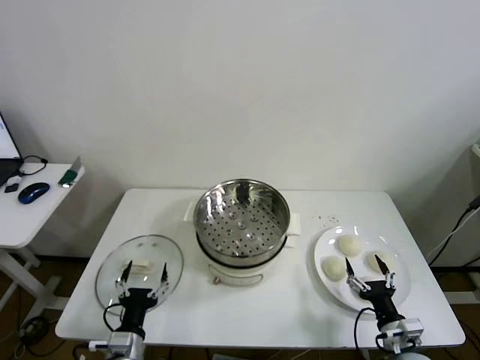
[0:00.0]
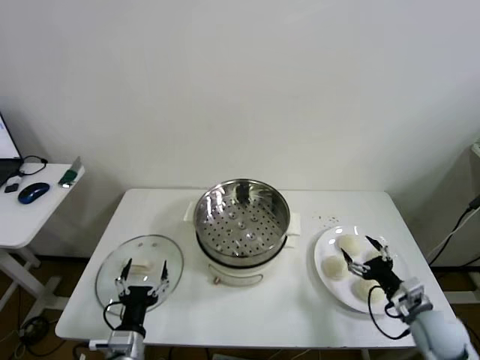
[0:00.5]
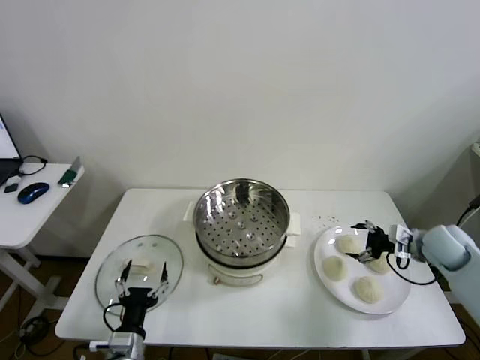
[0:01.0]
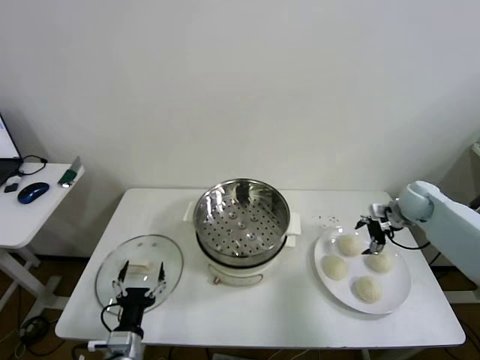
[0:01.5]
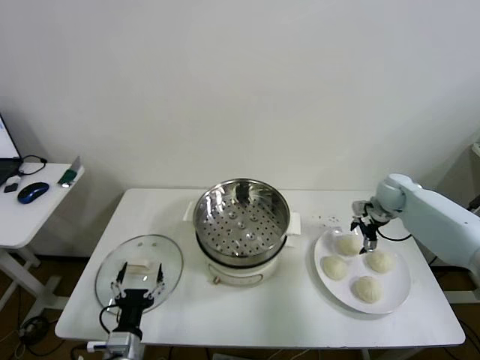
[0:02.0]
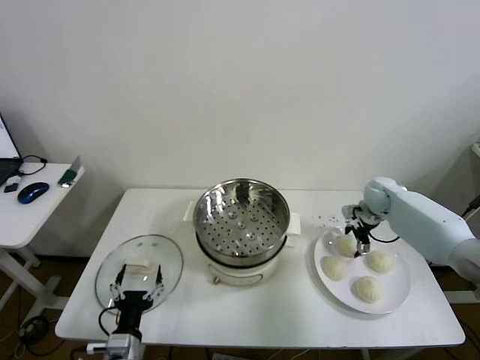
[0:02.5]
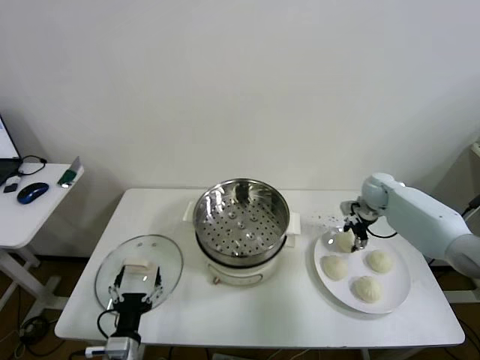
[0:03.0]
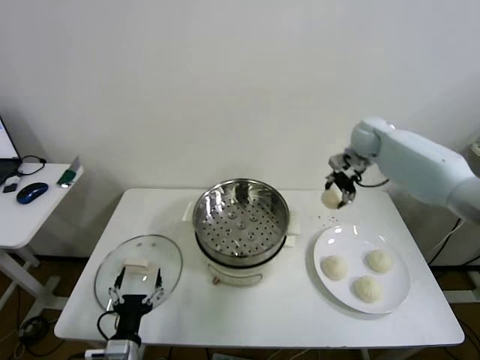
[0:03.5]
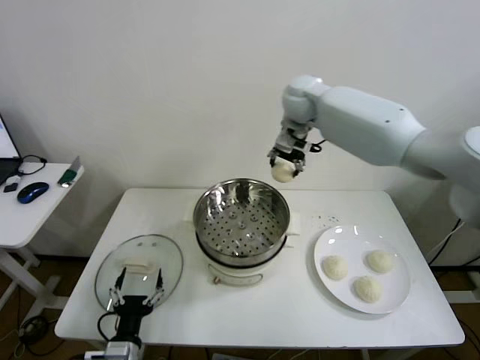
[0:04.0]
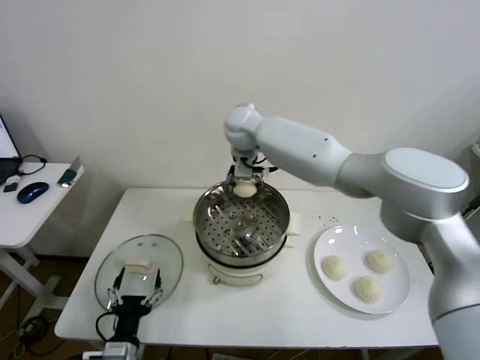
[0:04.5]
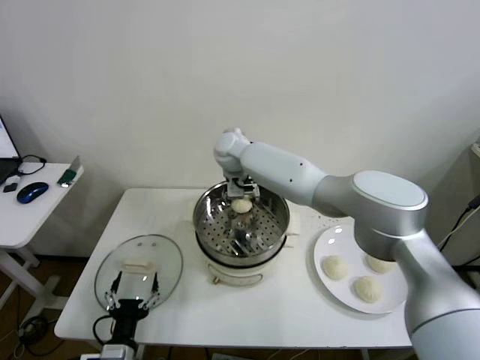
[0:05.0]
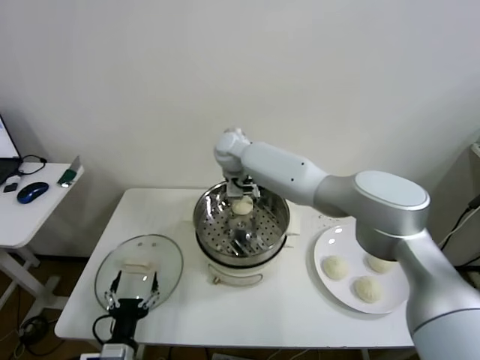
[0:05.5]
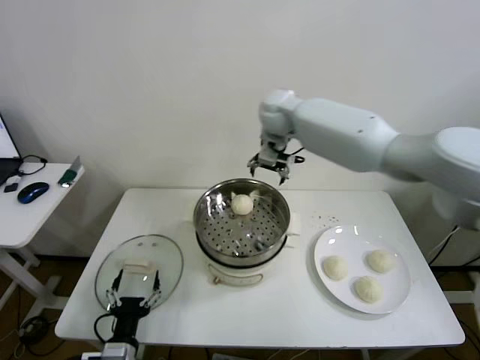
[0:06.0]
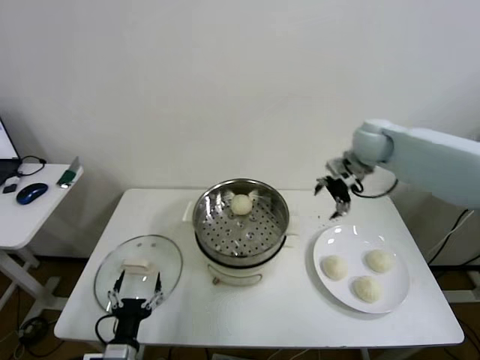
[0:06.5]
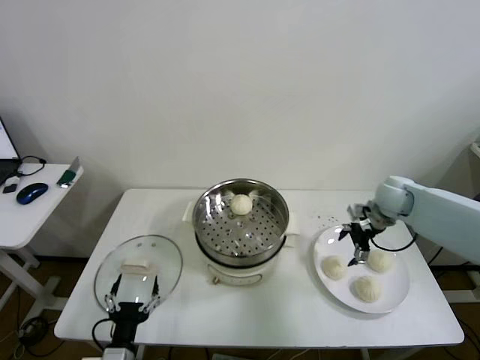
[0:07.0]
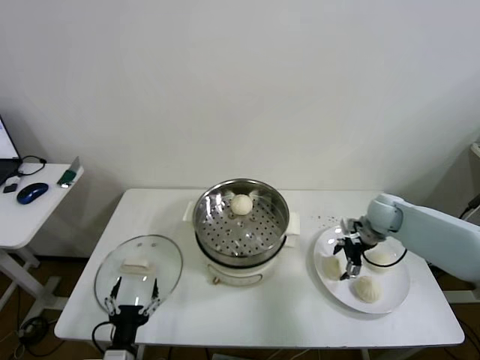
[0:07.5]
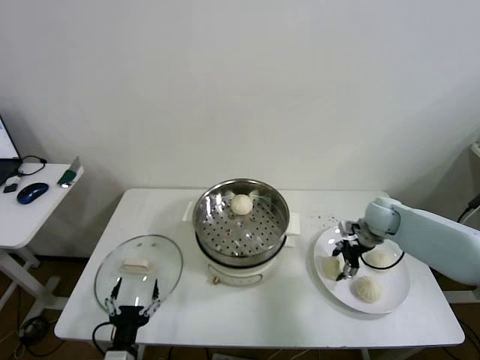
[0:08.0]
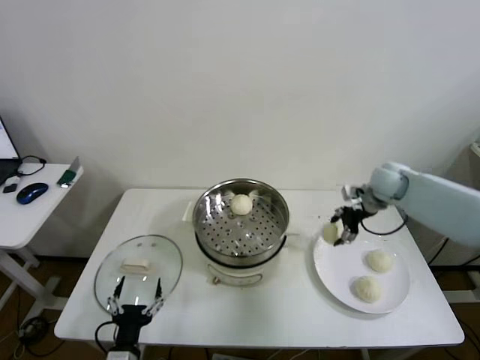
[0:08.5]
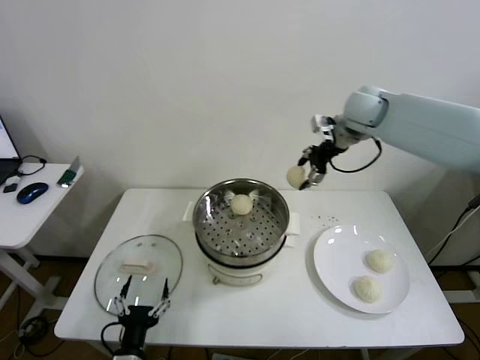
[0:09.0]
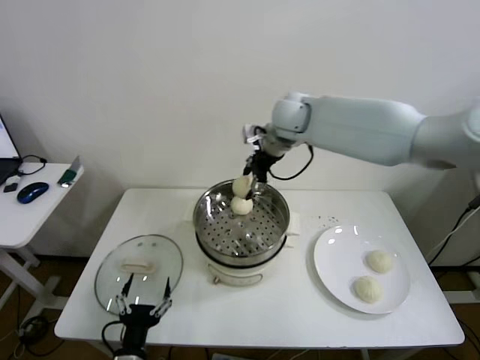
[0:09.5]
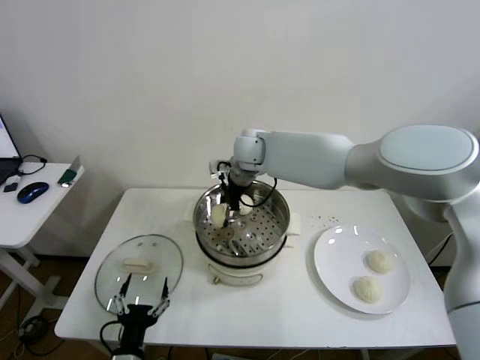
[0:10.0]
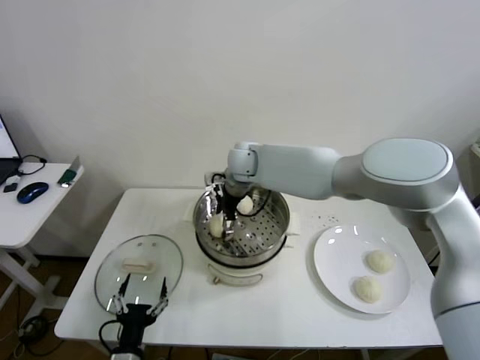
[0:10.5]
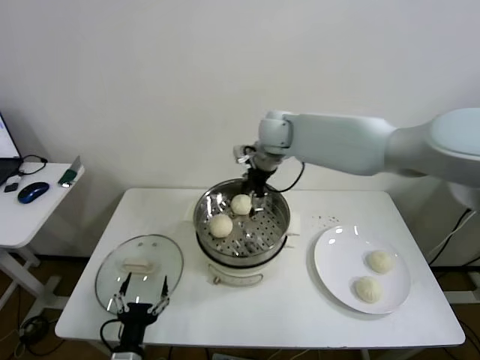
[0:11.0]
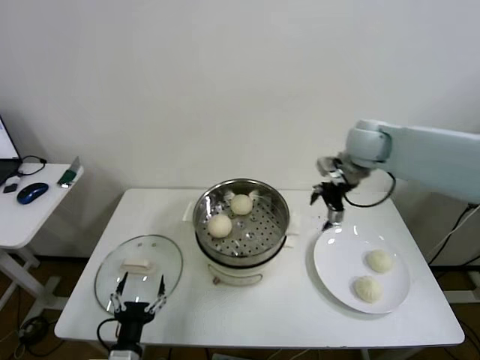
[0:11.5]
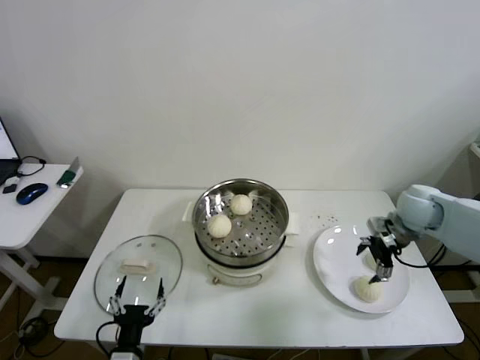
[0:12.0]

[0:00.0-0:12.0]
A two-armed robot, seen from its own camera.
Step, 0:00.0 to 0:02.5: Grasp the baozi in the plate with right gripper.
Step, 0:03.0 to 0:05.0: Place the baozi on the steamer with right gripper.
Step, 0:05.5 to 0:08.0: Grasp the baozi in the plate with right gripper.
Step, 0:08.5 to 0:10.0: Place the baozi on the steamer with right gripper.
0:02.0 to 0:04.0: The right gripper moves to the left and upward, about 40 cm, and closes its fingers.
0:04.0 to 0:06.0: The right gripper moves roughly 15 cm to the left and comes back, and opens.
0:06.0 to 0:08.0: The right gripper is displaced downward and to the right by about 35 cm, and closes.
0:08.0 to 0:10.0: The right gripper heads to the left and upward, covering some 40 cm.
0:10.0 to 0:12.0: The right gripper is displaced to the right by about 40 cm, and opens up.

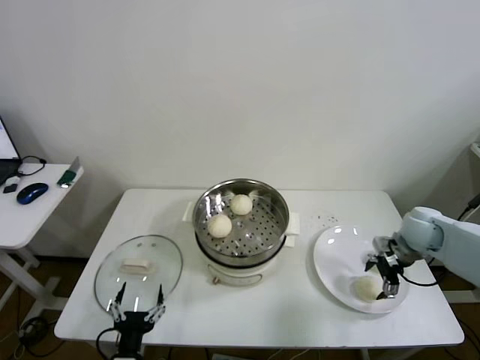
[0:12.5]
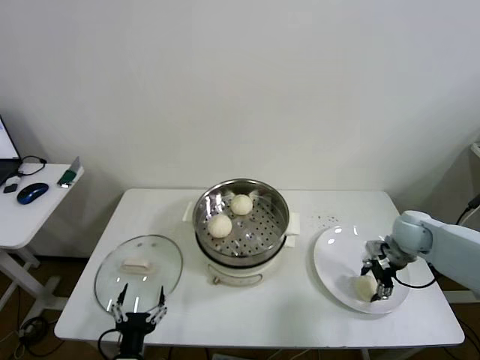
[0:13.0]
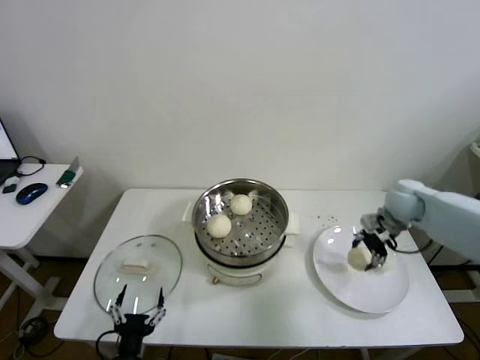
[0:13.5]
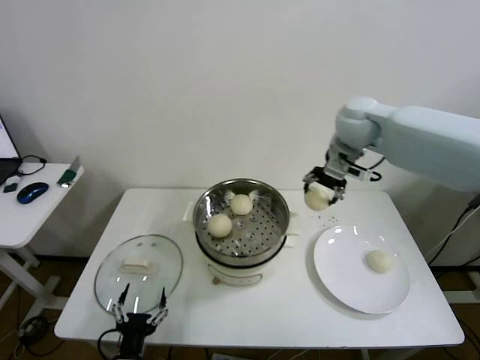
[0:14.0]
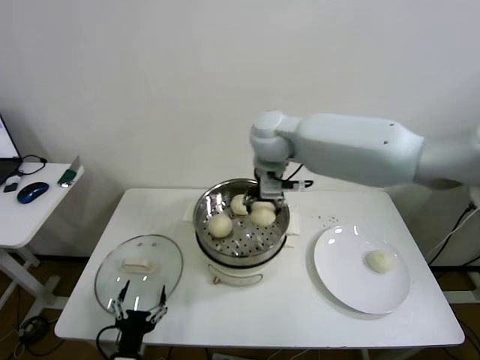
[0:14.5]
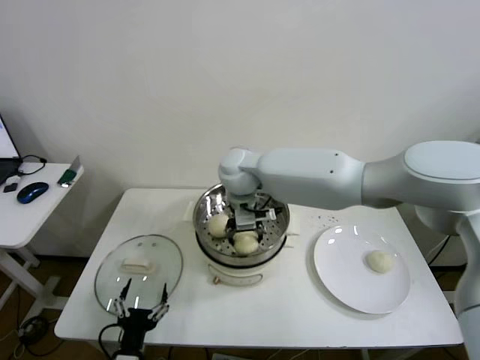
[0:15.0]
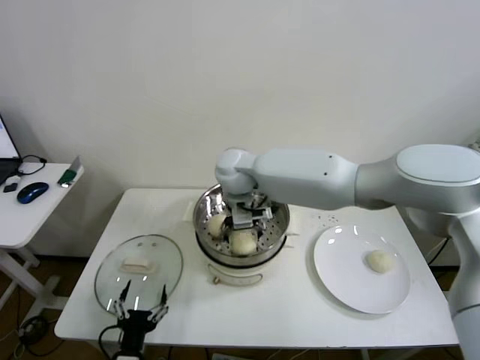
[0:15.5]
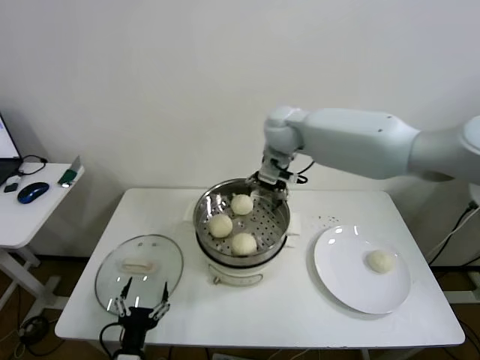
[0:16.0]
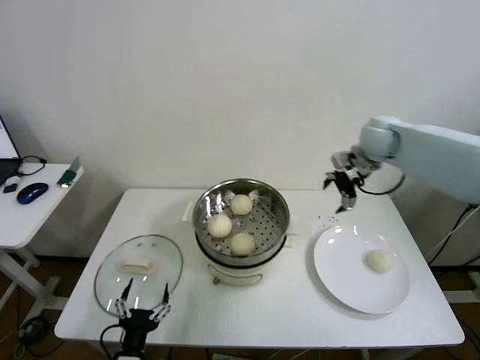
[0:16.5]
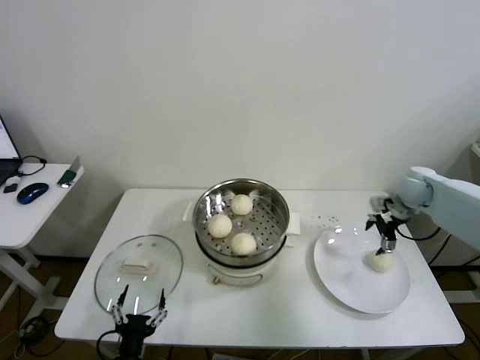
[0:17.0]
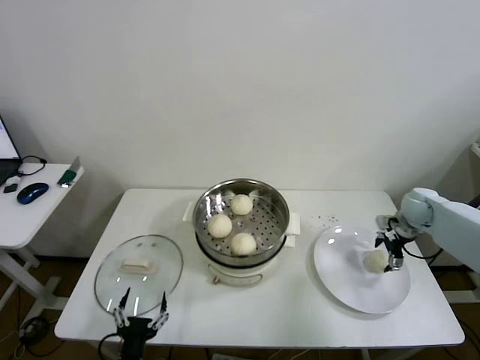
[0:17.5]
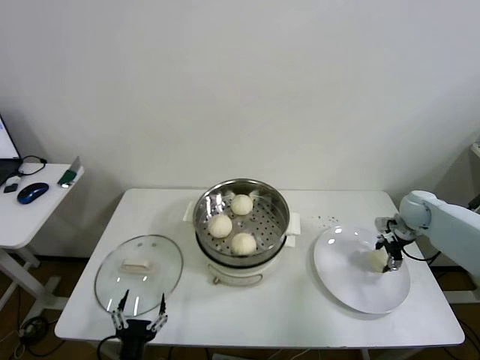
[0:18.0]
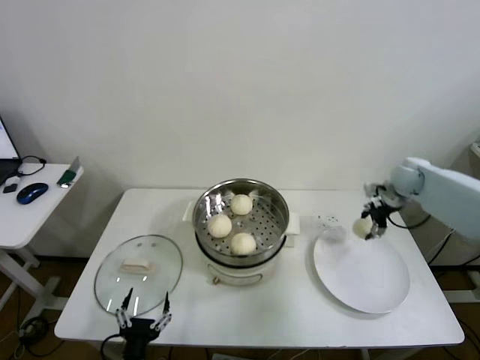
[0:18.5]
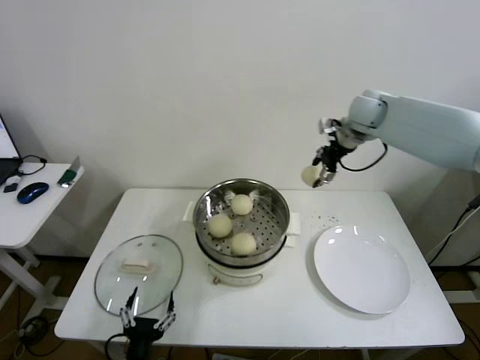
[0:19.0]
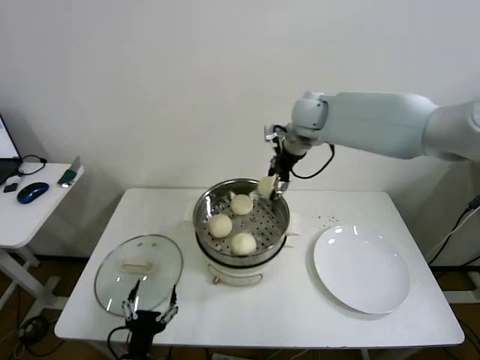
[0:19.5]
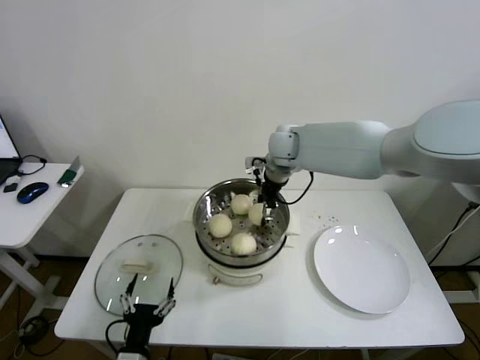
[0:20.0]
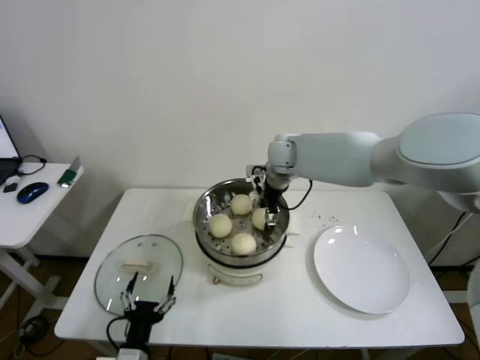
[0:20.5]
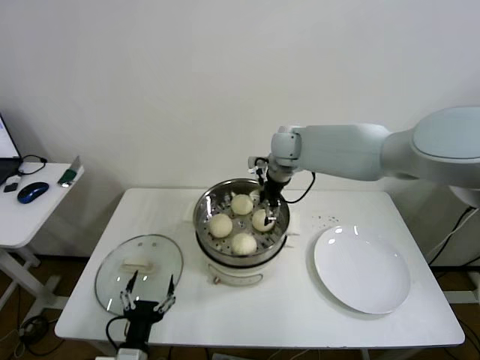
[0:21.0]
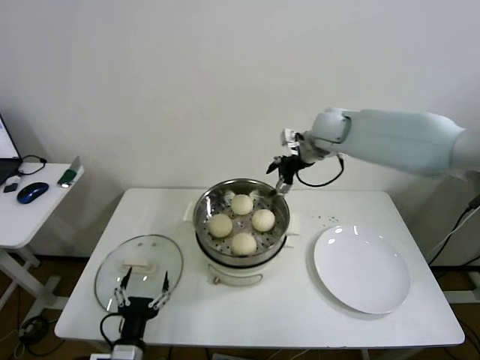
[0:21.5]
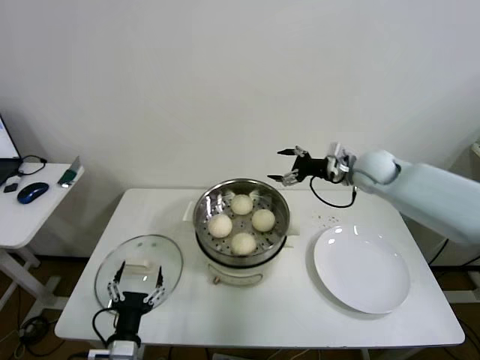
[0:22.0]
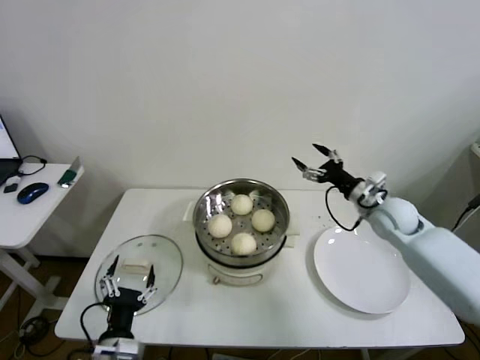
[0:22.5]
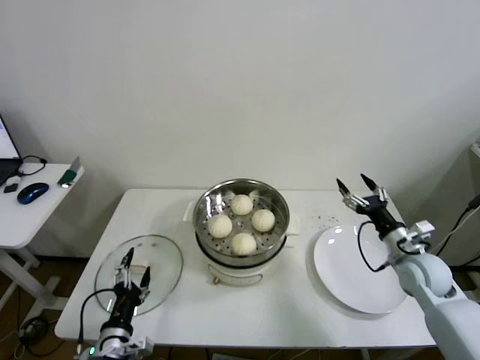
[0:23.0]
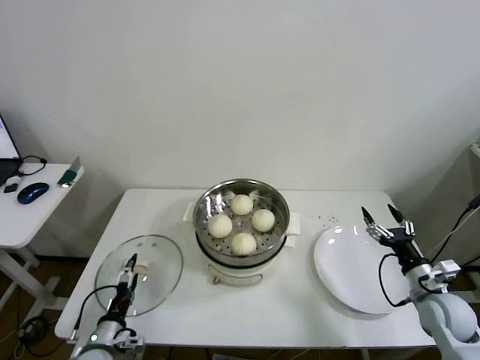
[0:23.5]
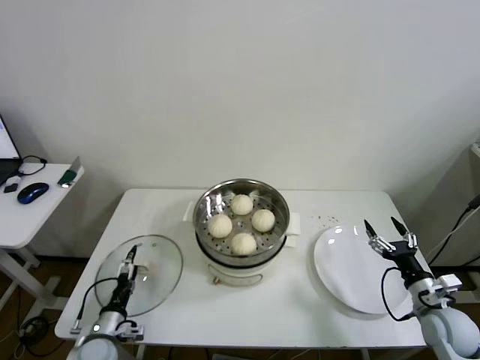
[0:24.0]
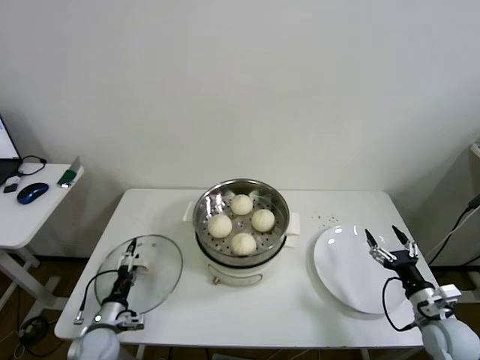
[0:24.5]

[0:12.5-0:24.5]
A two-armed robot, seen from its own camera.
Step, 0:13.5 to 0:15.0: Place the baozi on the steamer with right gripper.
Step, 0:15.5 to 0:18.0: Grasp the baozi in the plate with right gripper.
Step, 0:18.5 to 0:20.5: Place the baozi on the steamer with right gripper.
0:12.5 to 0:14.5: The right gripper is displaced to the left and upward by some 40 cm, and closes its fingers.
0:14.5 to 0:16.5: The right gripper goes about 30 cm to the right, and opens up.
0:16.5 to 0:18.5: The right gripper travels downward and to the right by some 15 cm, and closes up.
0:18.5 to 0:20.5: The right gripper moves to the left, approximately 30 cm.
0:20.5 to 0:22.5: The right gripper is displaced to the right, backward and downward by roughly 30 cm, and opens its fingers.
0:22.5 to 0:24.5: The left gripper is displaced downward, forward and to the left by roughly 20 cm; the right gripper heads backward, downward and to the right, covering approximately 30 cm.

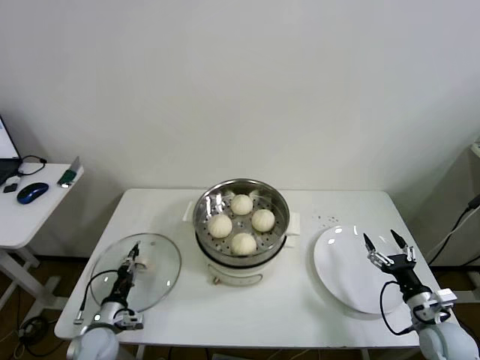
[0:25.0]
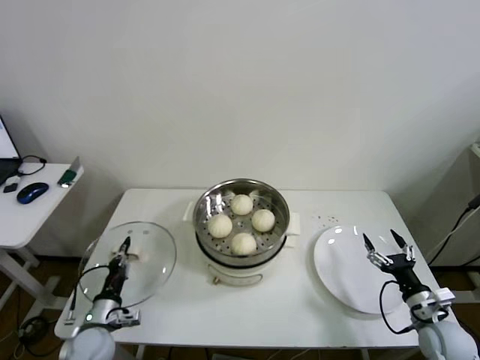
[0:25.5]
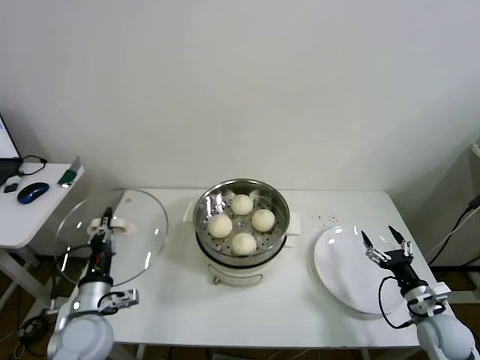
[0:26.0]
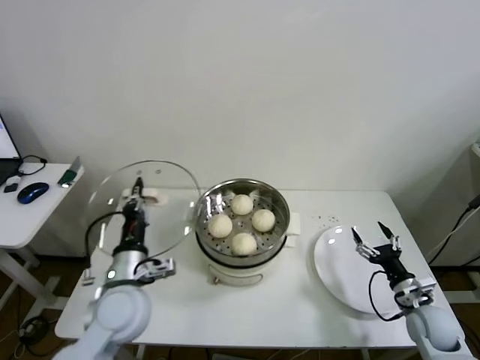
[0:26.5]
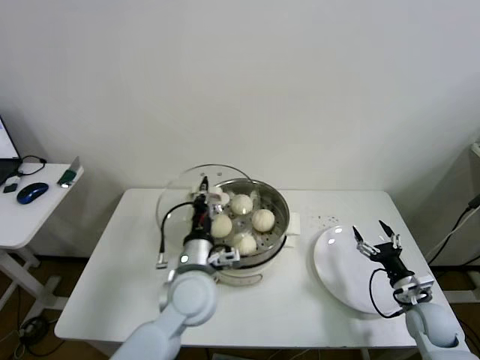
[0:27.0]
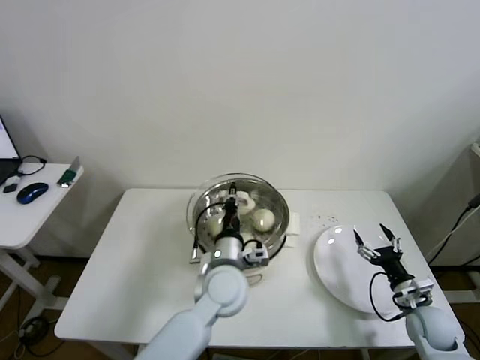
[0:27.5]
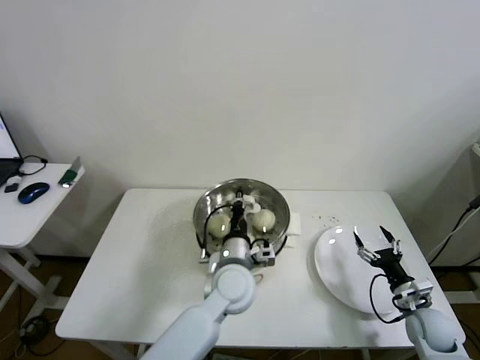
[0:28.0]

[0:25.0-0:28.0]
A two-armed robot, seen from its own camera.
0:25.0 to 0:26.5: The left gripper travels upward and to the right by some 25 cm.
0:26.5 to 0:28.0: The left gripper is displaced to the right by about 20 cm.
